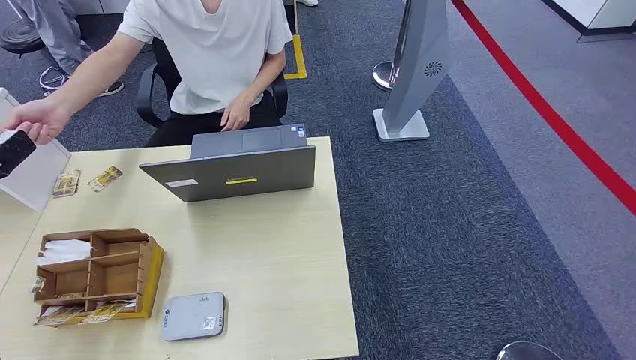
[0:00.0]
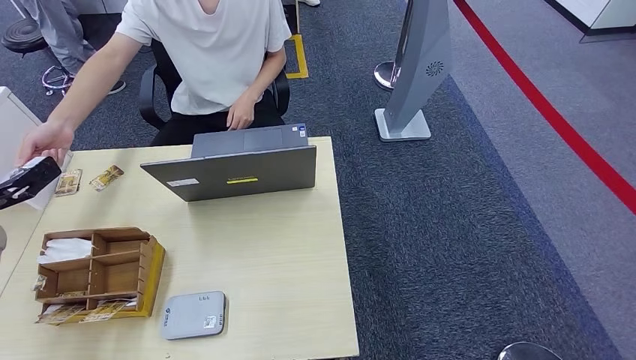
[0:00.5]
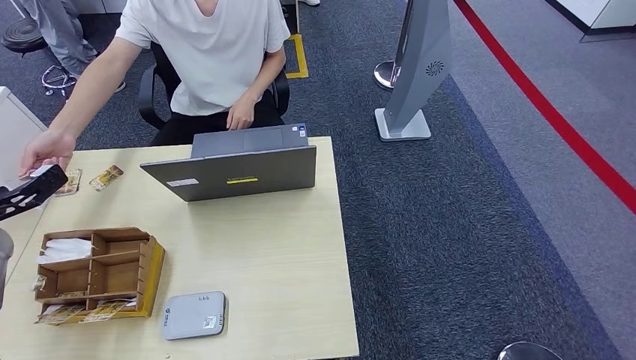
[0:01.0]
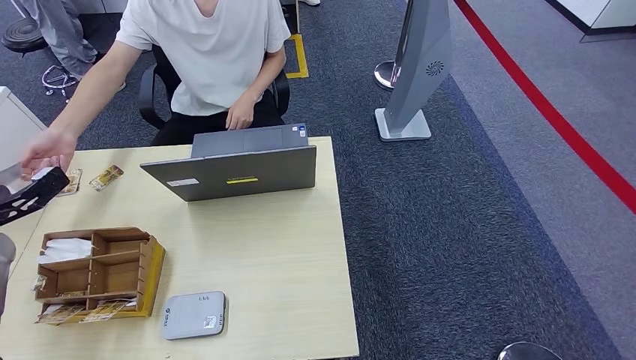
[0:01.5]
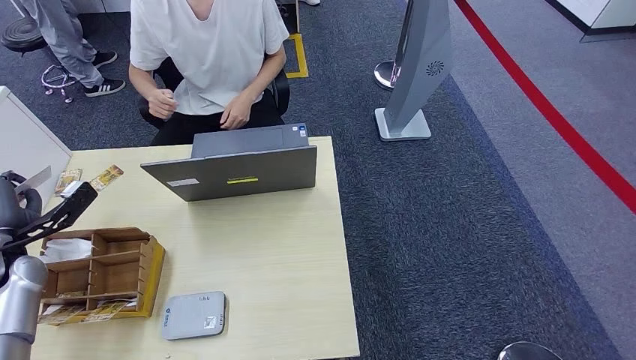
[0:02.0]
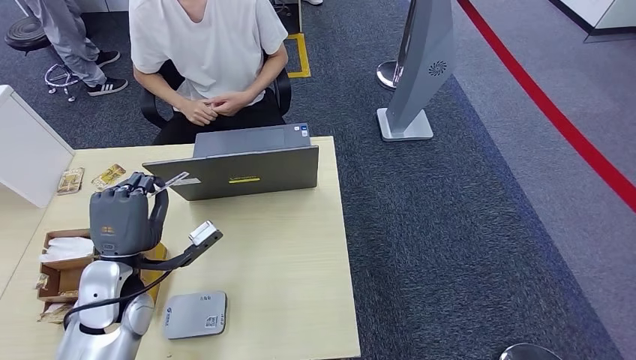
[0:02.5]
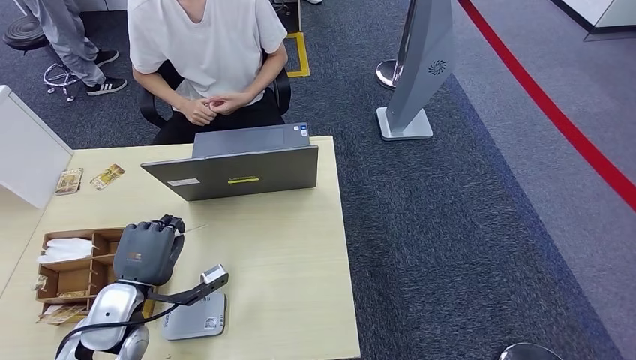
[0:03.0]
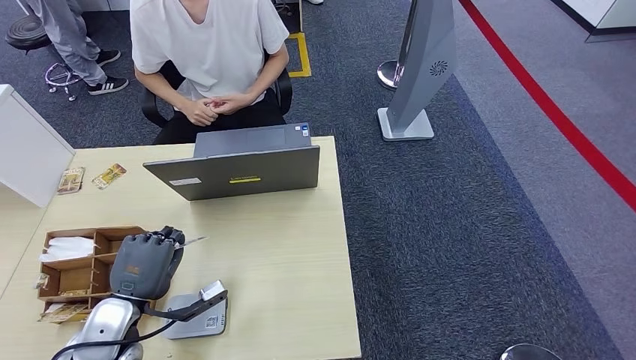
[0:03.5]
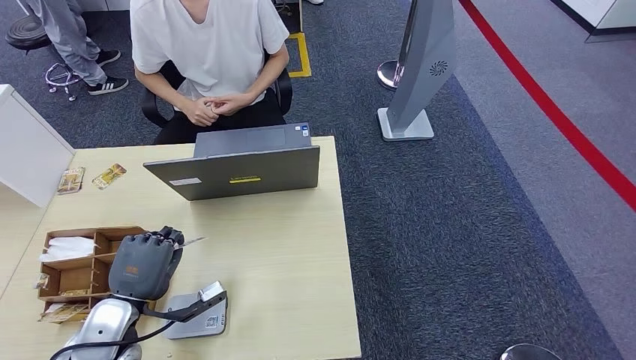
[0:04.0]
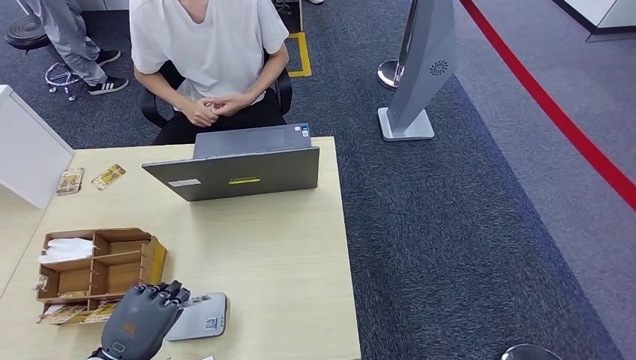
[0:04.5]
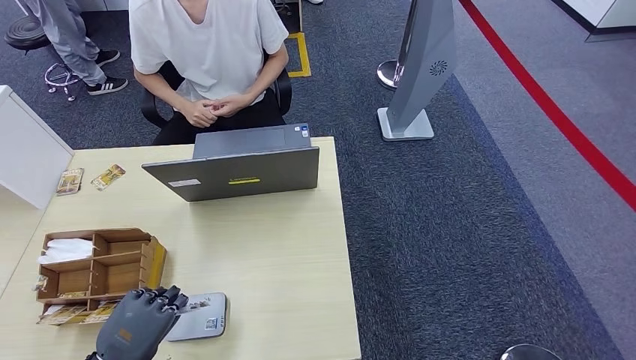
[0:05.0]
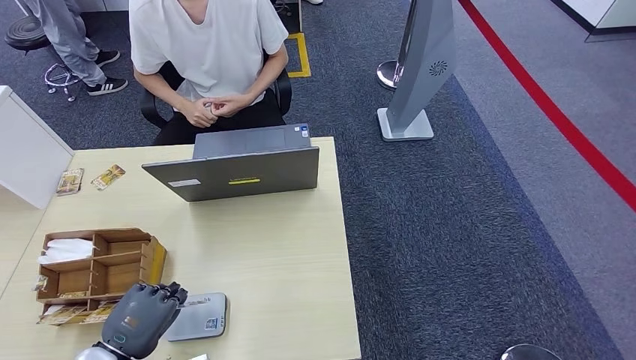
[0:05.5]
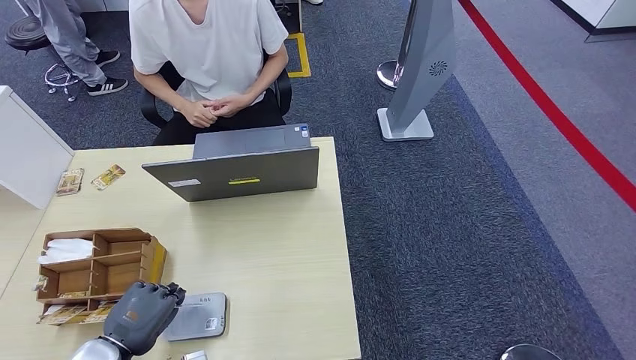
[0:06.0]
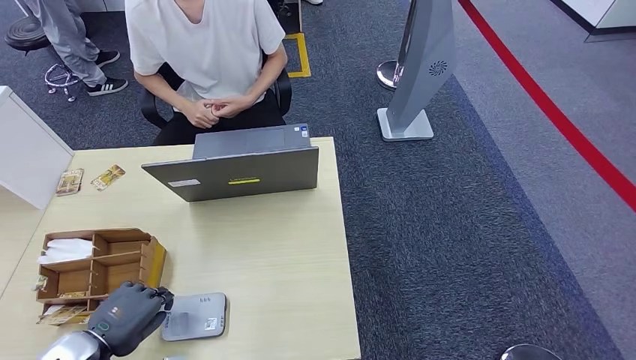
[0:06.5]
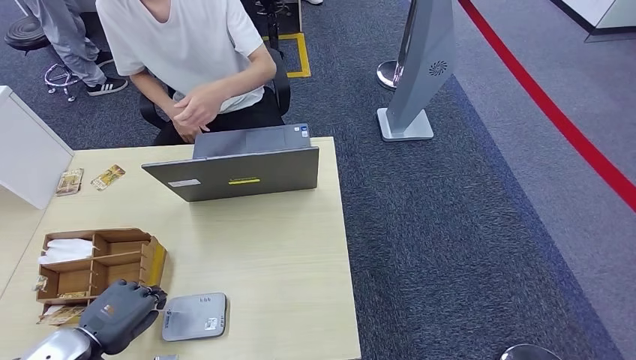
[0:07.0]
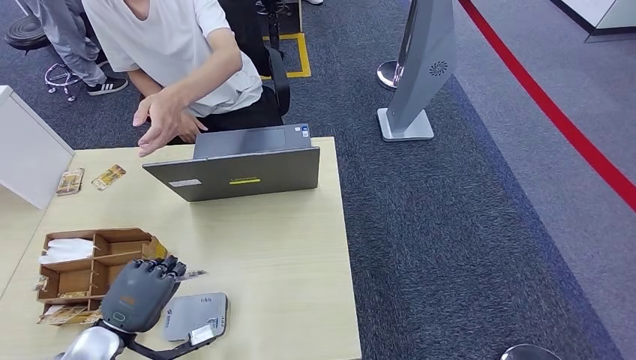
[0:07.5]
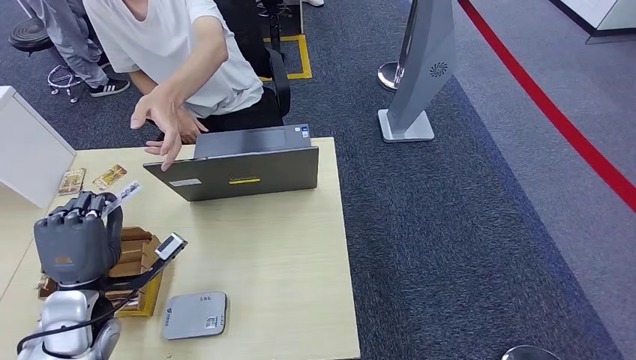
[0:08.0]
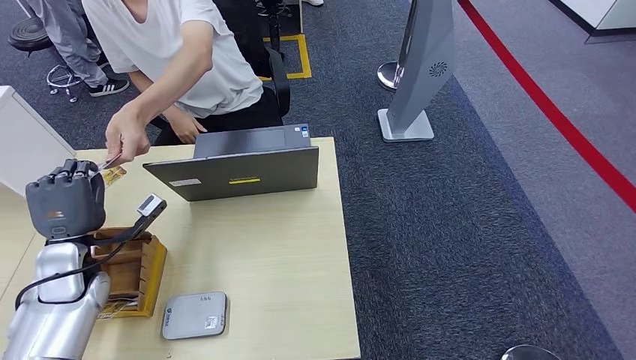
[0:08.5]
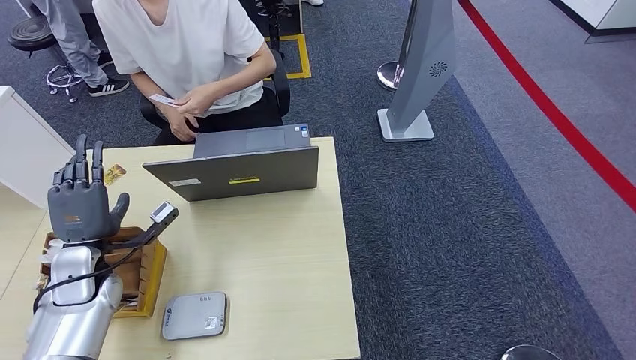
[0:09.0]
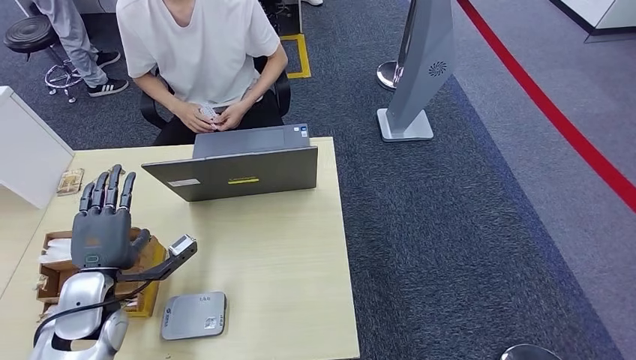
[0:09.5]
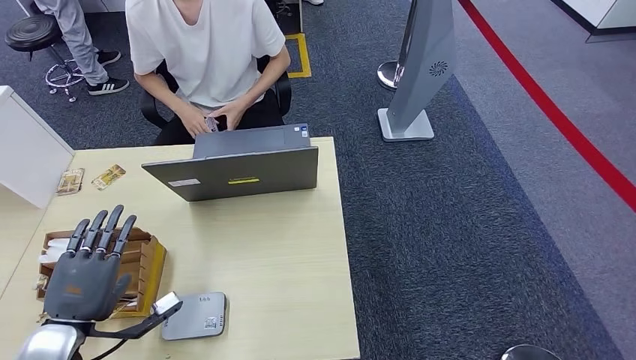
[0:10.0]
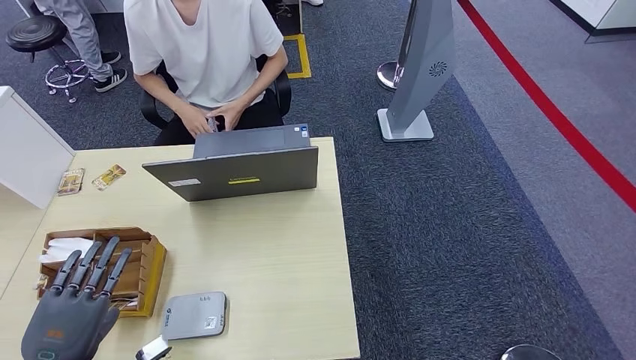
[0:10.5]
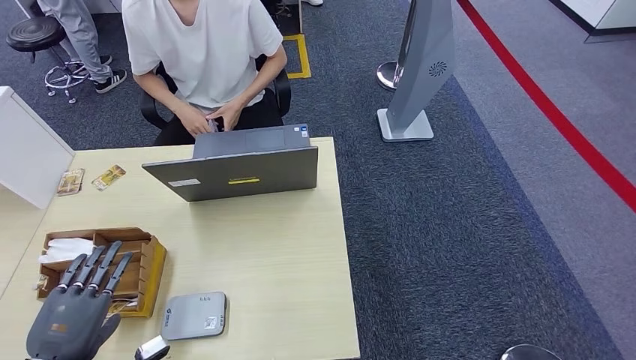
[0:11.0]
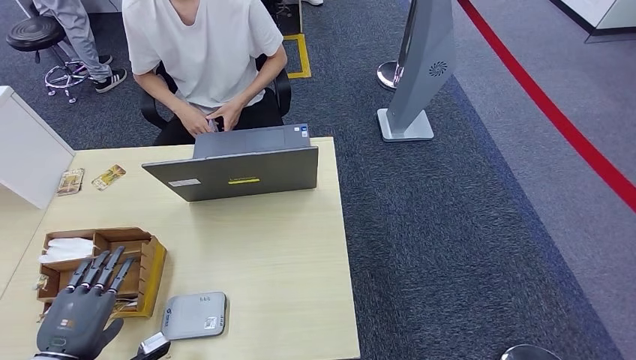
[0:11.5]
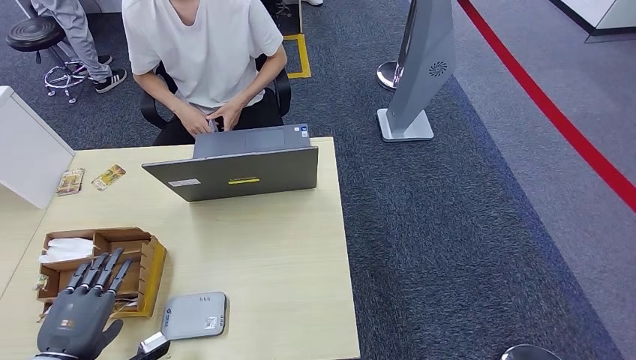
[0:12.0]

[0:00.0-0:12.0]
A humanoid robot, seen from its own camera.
Step, 0:00.0 to 0:02.0: Take the ID card from the person's hand.
Step, 0:02.5 to 0:06.0: Place the ID card on the card reader.
Step, 0:06.5 to 0:09.5: Hand the ID card to the person.
0:02.0 to 0:04.0: The left hand moves to the right and backward, approximately 20 cm.
0:04.0 to 0:06.0: The left hand goes approximately 5 cm backward.
0:06.0 to 0:08.0: The left hand travels forward and upward by roughly 10 cm.
0:08.0 to 0:10.0: The left hand heads backward, covering some 5 cm.
0:10.0 to 0:12.0: The left hand moves about 5 cm.

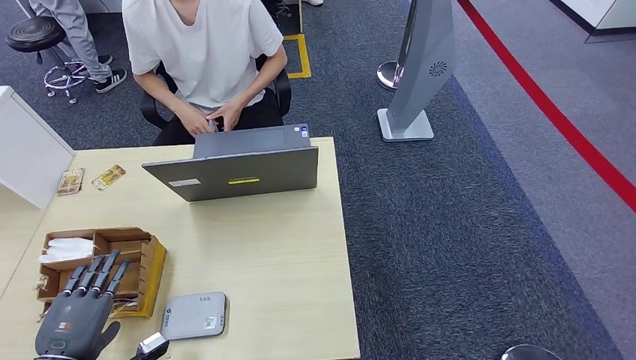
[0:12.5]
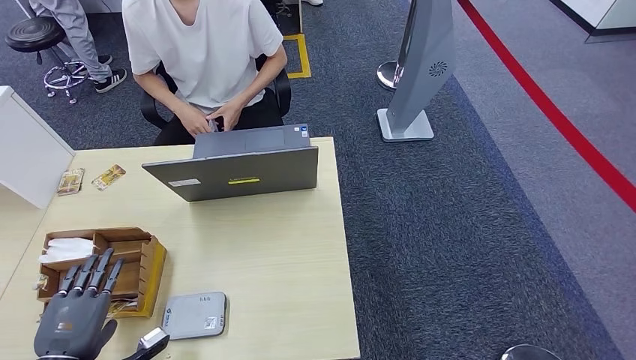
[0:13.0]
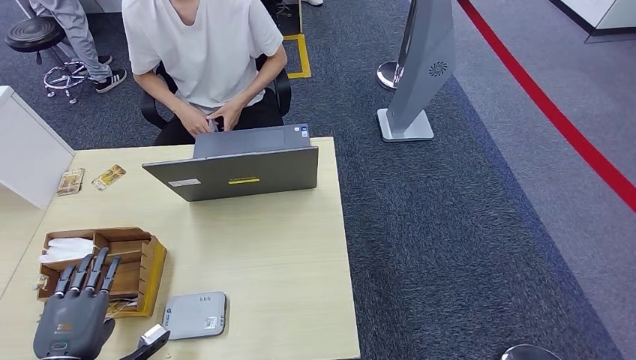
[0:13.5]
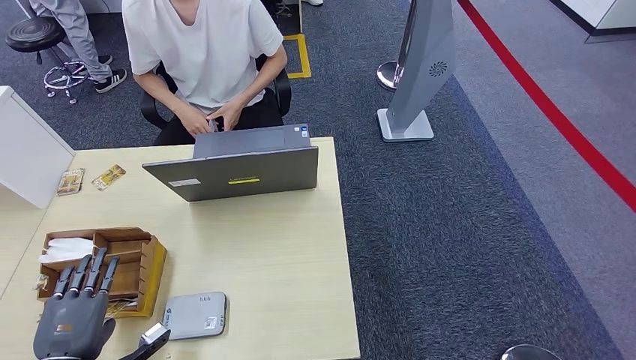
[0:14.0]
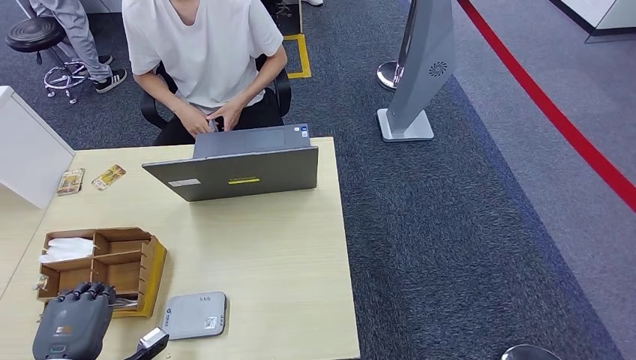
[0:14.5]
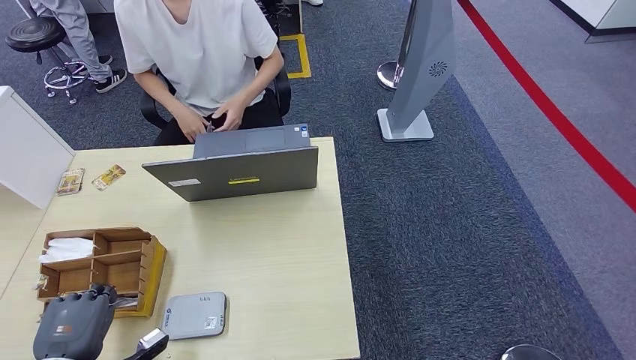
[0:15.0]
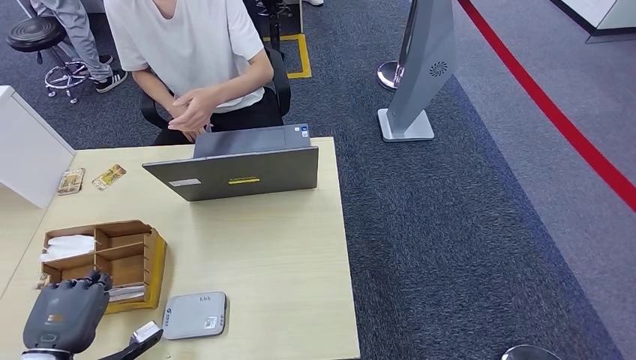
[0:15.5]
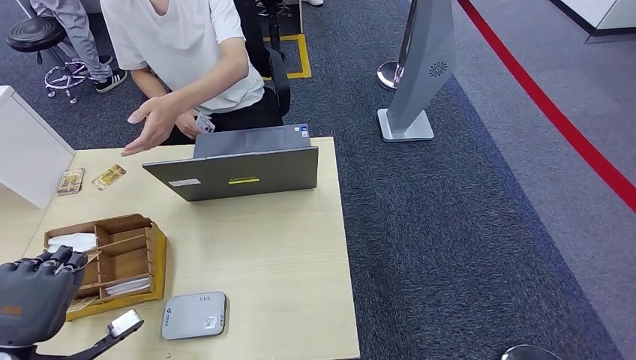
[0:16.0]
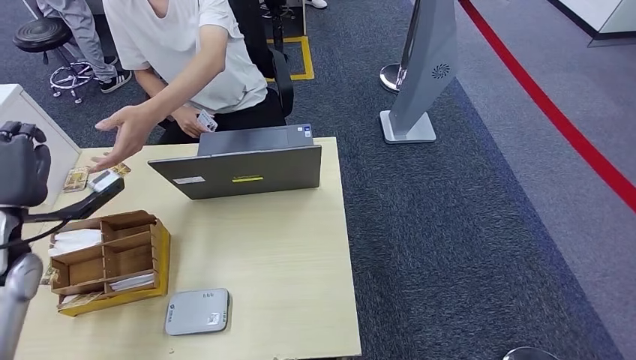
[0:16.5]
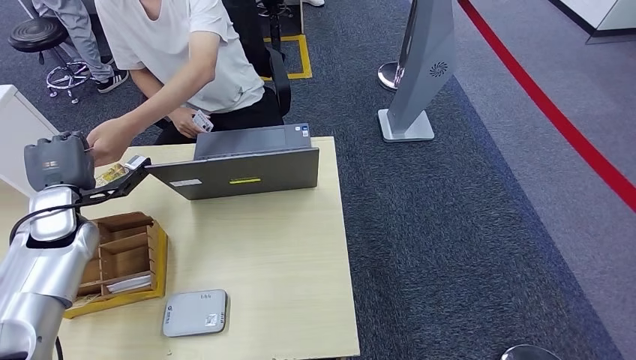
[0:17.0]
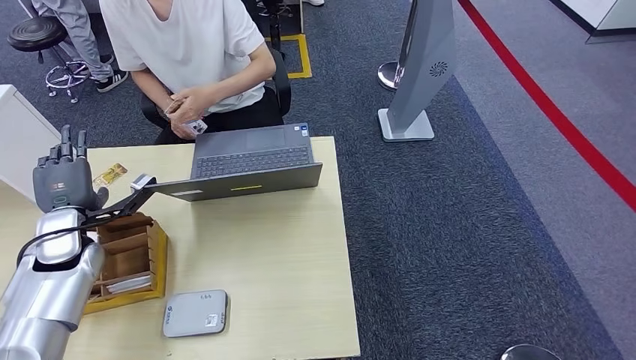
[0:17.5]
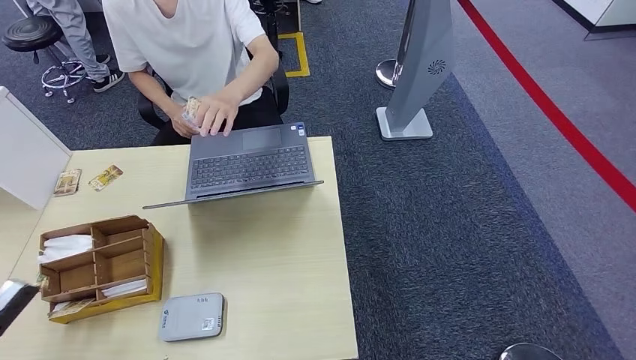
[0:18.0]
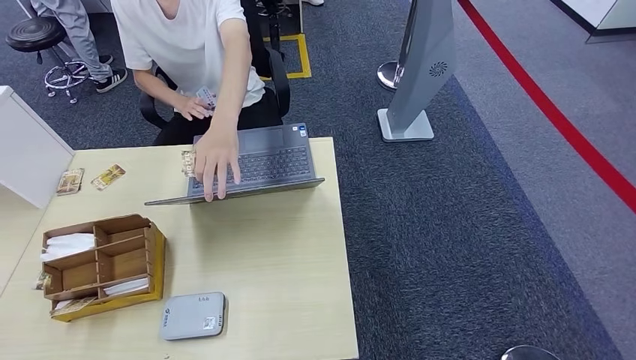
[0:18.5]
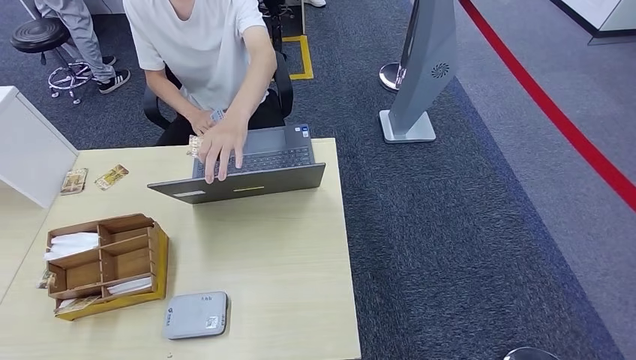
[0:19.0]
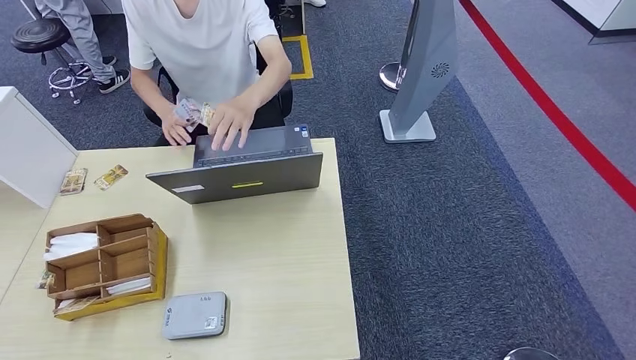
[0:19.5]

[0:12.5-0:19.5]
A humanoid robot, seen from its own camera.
Step, 0:12.5 to 0:15.5: Pick up the room key from the key card box.
Step, 0:16.0 to 0:19.5: Hand the room key to the person.
0:12.5 to 0:14.5: The hands make only small movements.
0:14.5 to 0:16.0: The left hand is displaced upward by about 10 cm.
0:16.0 to 0:17.5: The left hand heads forward, covering some 20 cm.
0:17.5 to 0:19.5: The left hand heads backward and downward, covering approximately 50 cm.
